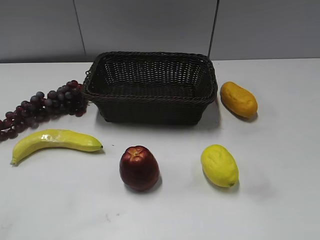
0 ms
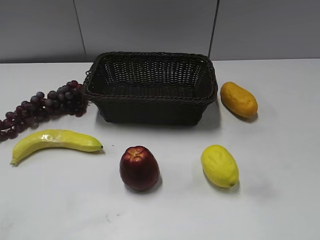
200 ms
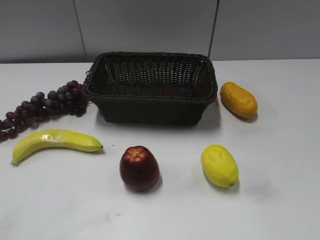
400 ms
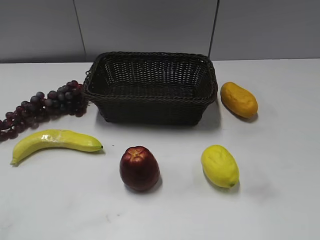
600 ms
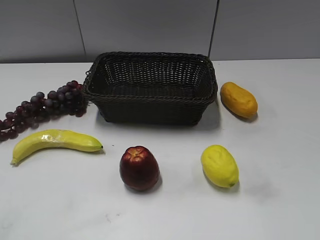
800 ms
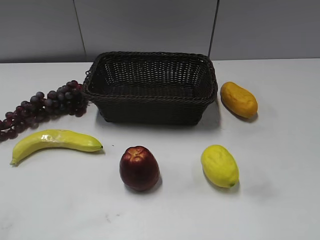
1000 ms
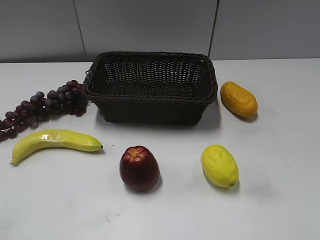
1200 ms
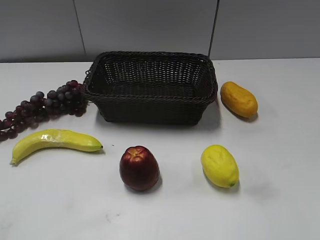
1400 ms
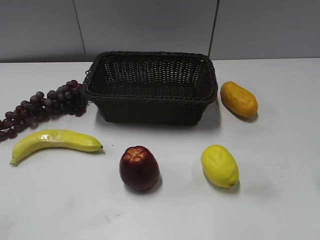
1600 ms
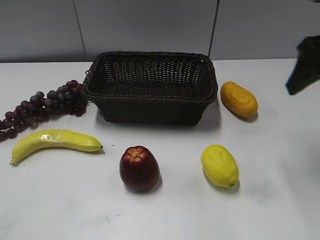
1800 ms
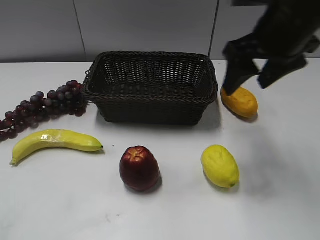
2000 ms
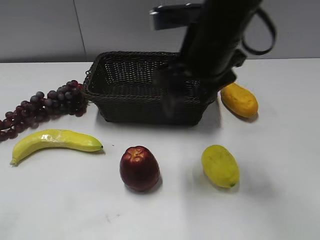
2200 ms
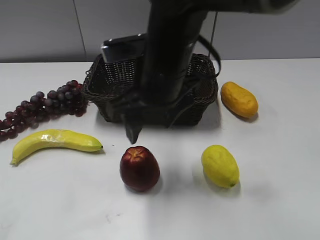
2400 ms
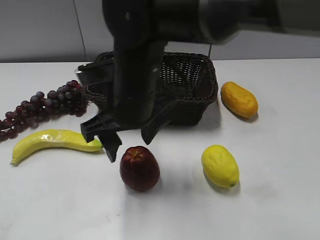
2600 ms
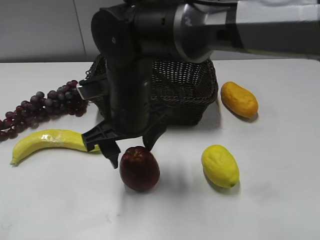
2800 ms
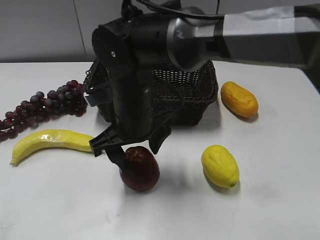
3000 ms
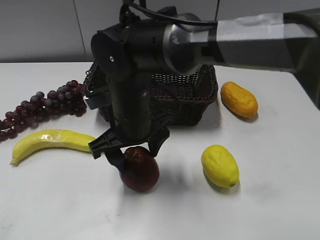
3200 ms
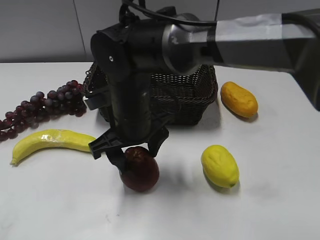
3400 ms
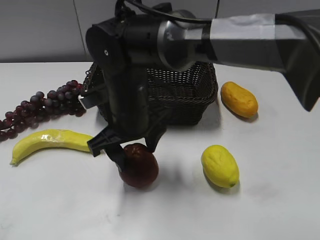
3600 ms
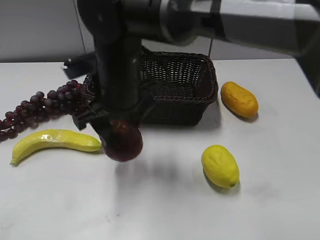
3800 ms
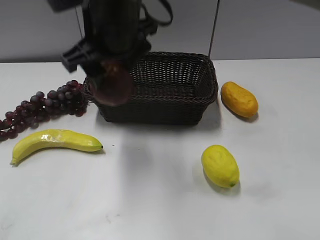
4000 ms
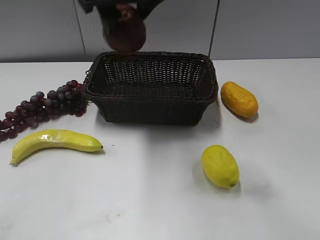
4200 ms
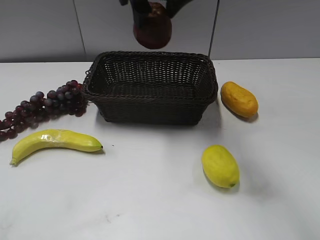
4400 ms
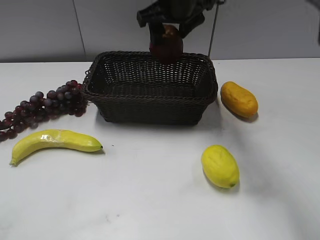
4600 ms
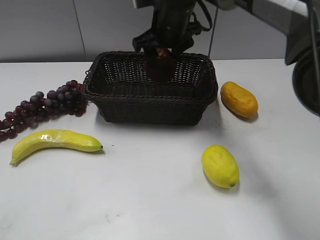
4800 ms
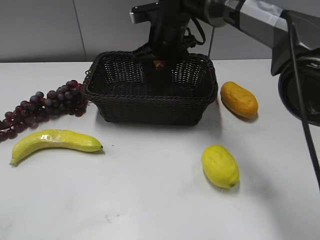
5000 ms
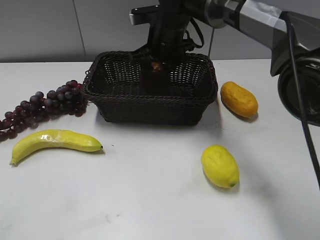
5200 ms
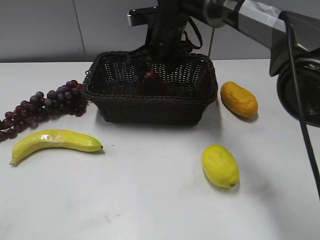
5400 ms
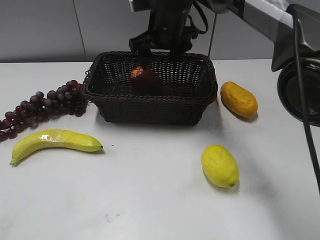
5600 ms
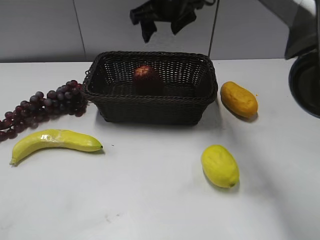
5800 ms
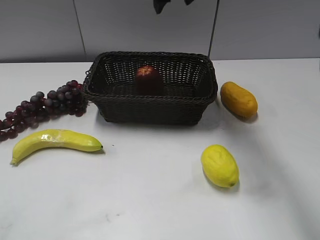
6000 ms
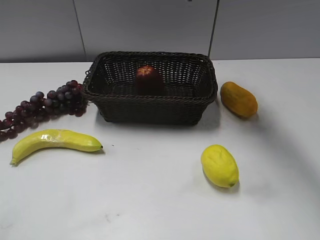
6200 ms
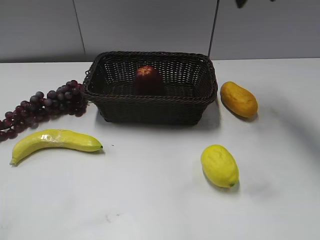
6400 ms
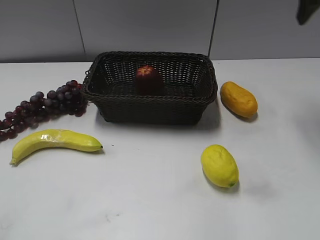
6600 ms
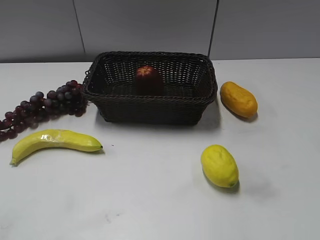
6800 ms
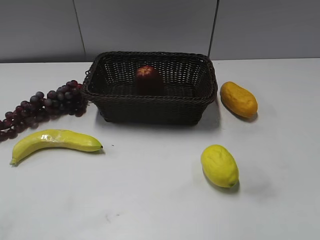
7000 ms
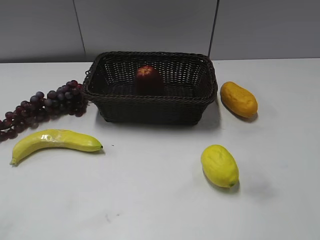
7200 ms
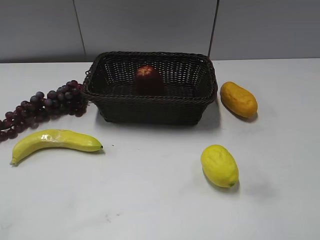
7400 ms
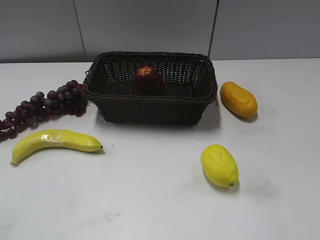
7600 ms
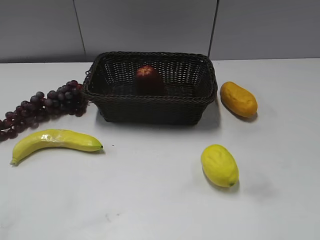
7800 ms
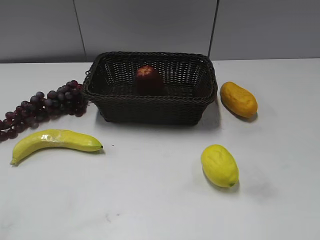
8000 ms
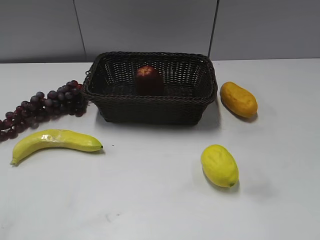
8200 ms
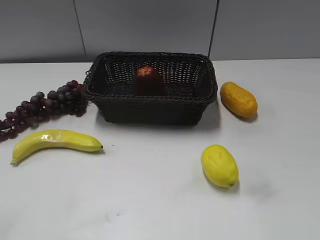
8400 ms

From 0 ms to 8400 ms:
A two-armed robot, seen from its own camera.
Step, from 1800 ms to 3000 ms: Grasp the apple with right gripper.
Step, from 3200 ms to 5200 ms: Place the apple in the basket with right gripper.
From 1400 ms to 2800 ms: The right gripper goes about 35 cm to the left.
From 2800 ms to 4200 ms: The right gripper travels upward and forward by approximately 20 cm.
From 4200 ms to 5600 ms: The right gripper moves downward and forward, approximately 15 cm.
From 5600 ms to 7000 ms: The right gripper shifts approximately 35 cm to the right and backward.

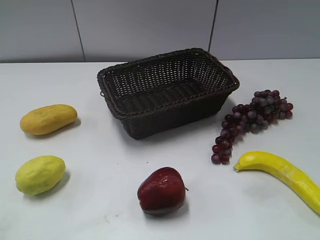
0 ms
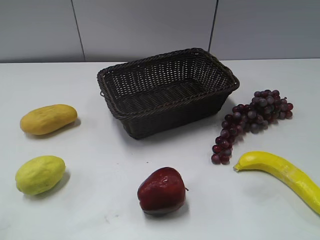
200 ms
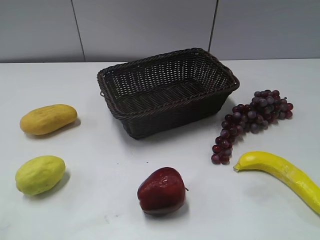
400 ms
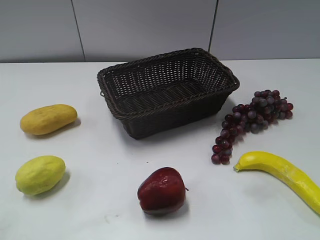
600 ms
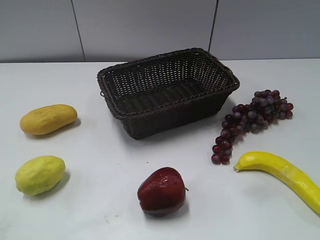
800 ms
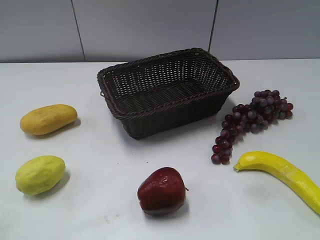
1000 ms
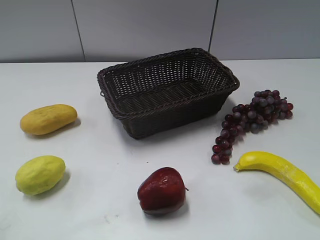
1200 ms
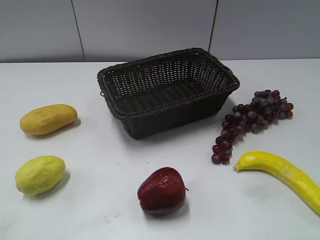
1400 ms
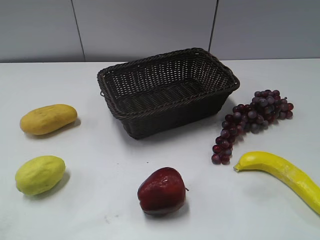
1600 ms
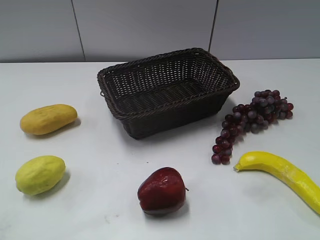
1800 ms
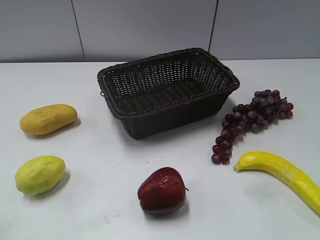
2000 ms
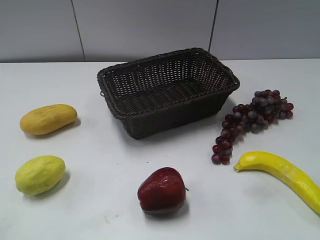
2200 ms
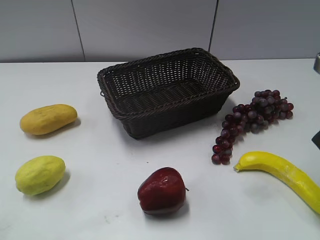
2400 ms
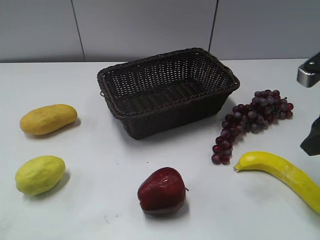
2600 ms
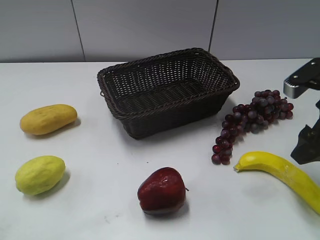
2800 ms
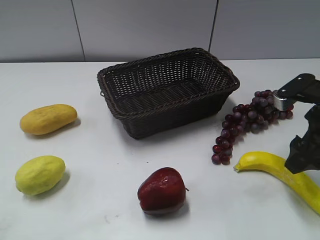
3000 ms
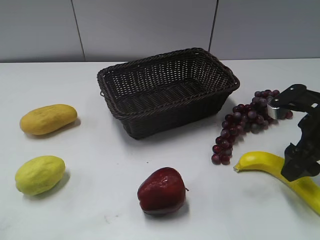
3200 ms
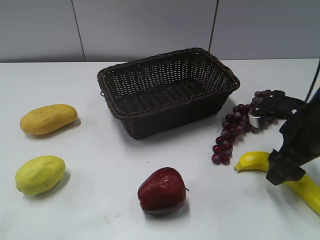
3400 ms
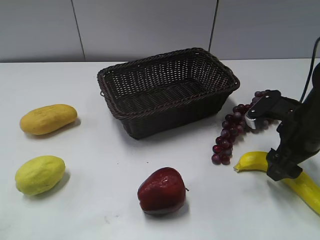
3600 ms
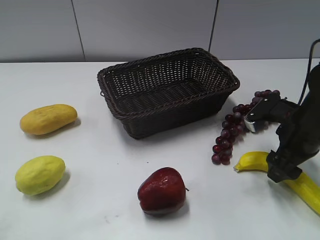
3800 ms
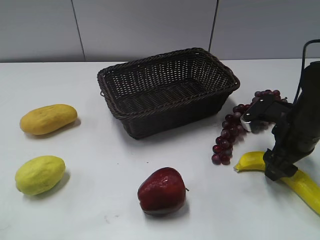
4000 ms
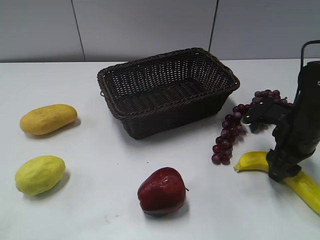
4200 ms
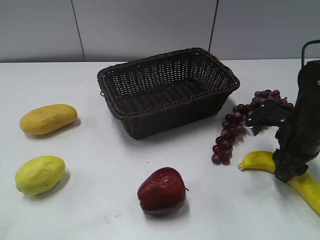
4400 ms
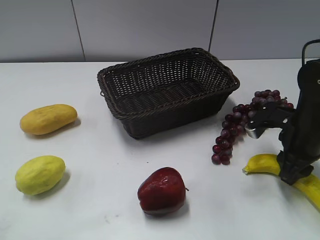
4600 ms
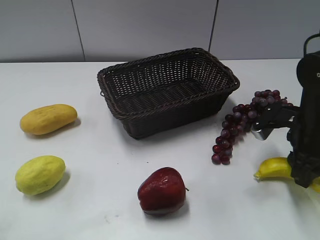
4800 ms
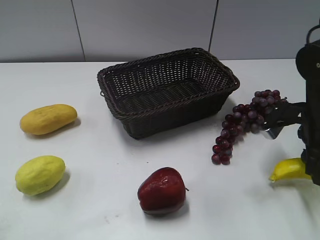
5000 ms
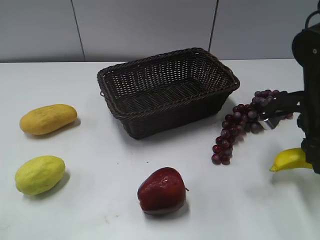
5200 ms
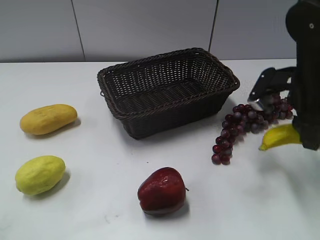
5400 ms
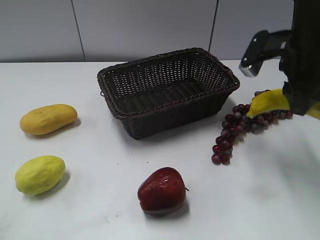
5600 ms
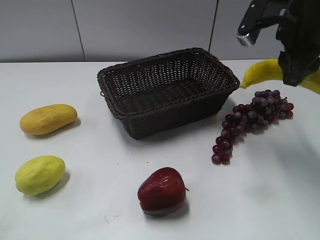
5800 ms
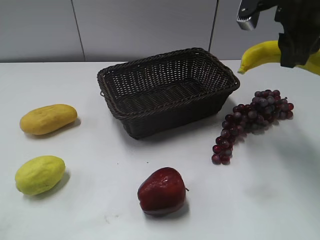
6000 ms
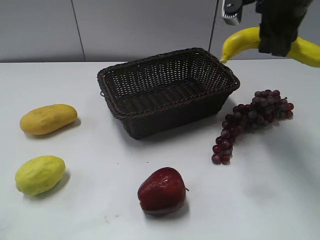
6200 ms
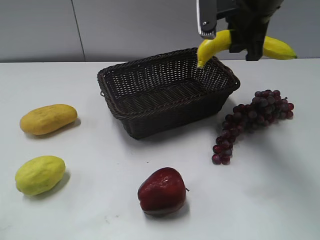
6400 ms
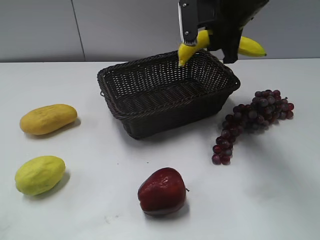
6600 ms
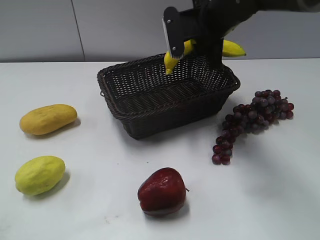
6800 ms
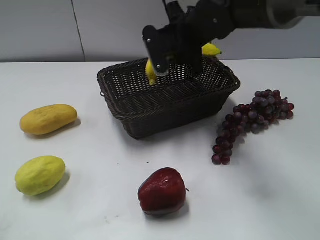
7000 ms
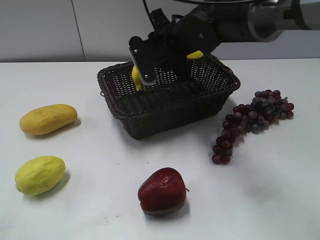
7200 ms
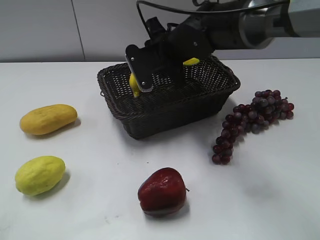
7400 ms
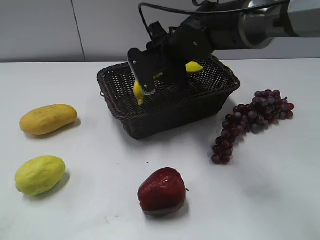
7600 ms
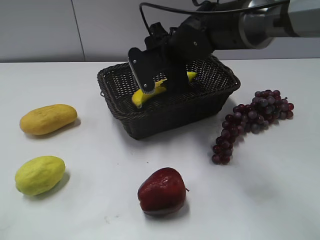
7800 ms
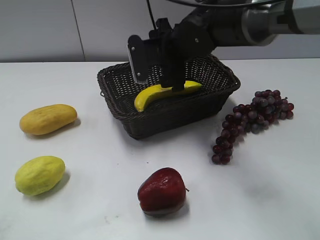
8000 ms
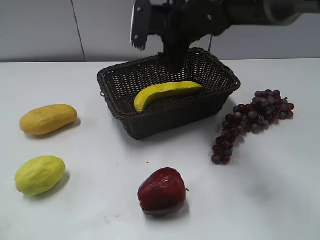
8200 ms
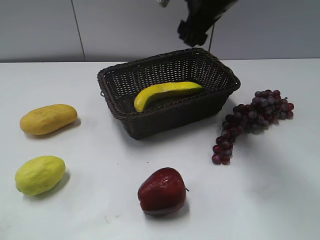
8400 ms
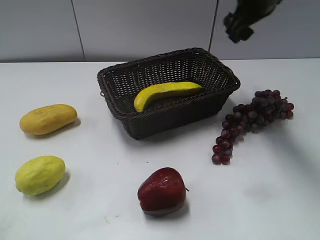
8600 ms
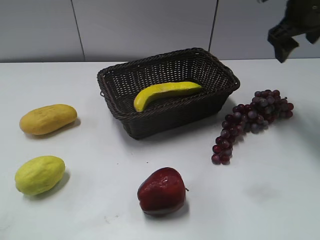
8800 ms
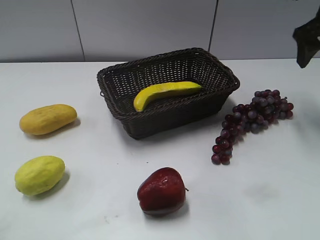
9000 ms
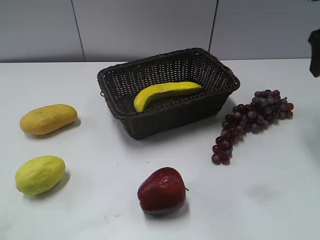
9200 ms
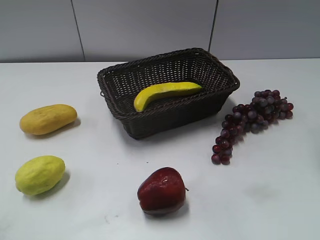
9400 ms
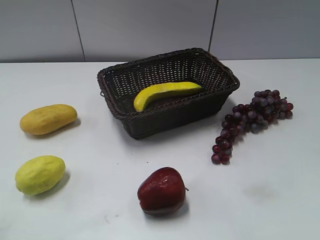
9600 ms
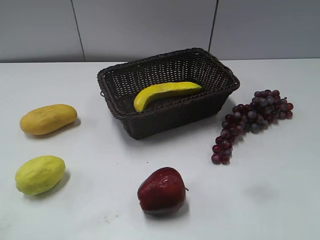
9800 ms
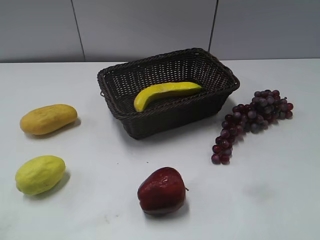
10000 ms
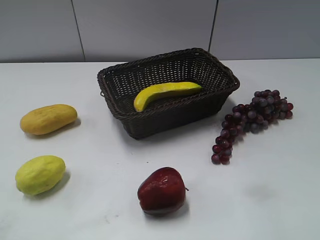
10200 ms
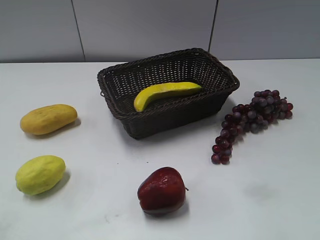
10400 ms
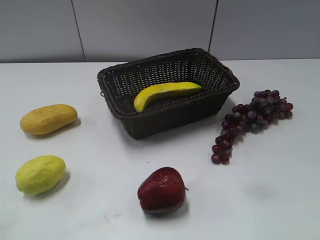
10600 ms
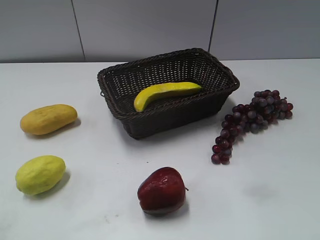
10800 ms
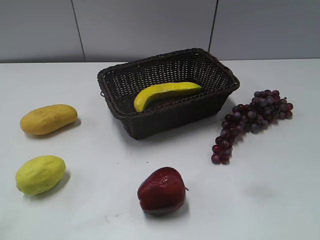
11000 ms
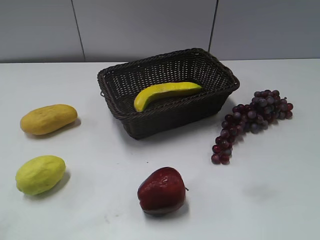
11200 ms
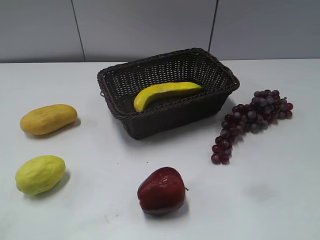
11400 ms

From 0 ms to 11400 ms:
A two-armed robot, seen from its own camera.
Step, from 2400 ms to 4600 ms: Grasp the banana with right gripper.
Step, from 4800 ms to 8000 ms: Place the banana in the basket with right gripper.
From 1400 ms to 2800 ms: The right gripper goes about 20 cm forward, and opens up.
From 2800 ms to 4200 ms: The right gripper shifts roughly 10 cm downward, and closes its fingers.
From 4200 ms to 5600 ms: The right gripper travels upward by roughly 15 cm, and closes up.
From 5600 ms to 7200 ms: The right gripper travels to the left and forward by about 20 cm.
From 7200 ms to 8600 ms: The right gripper shifts about 15 cm to the right and upward, and opens.
From 8600 ms to 10000 ms: The right gripper travels backward and to the right by some 30 cm.
